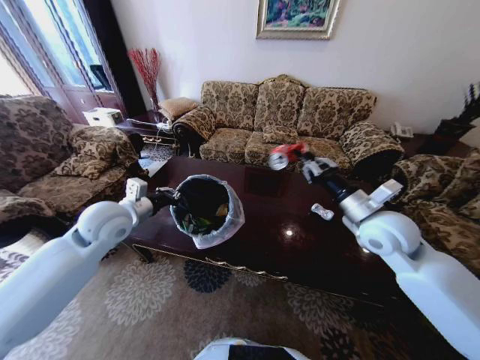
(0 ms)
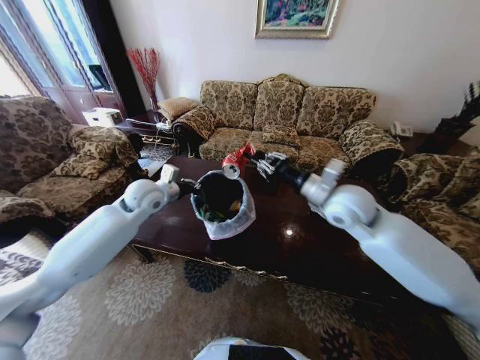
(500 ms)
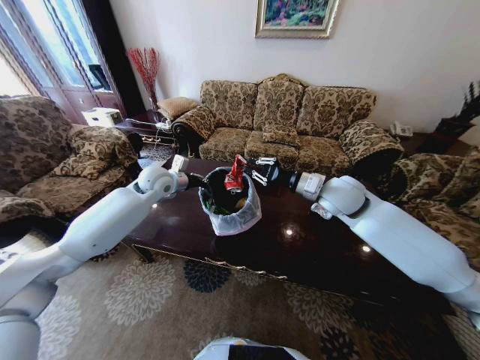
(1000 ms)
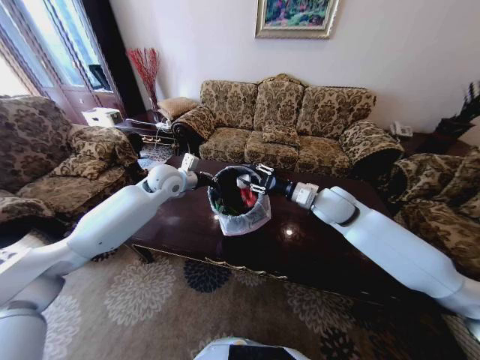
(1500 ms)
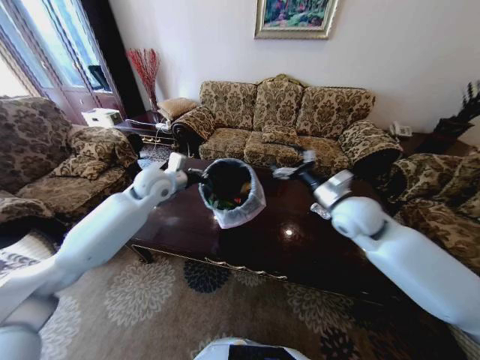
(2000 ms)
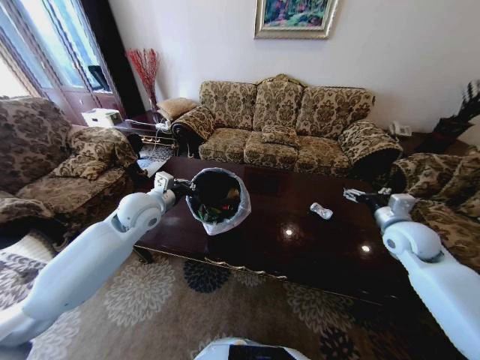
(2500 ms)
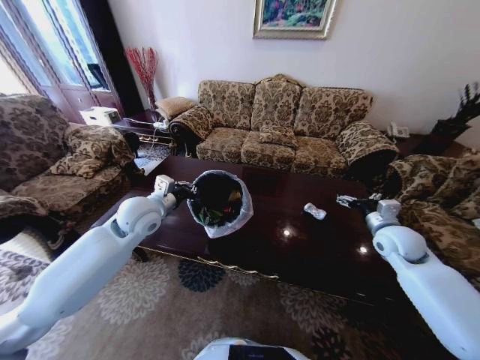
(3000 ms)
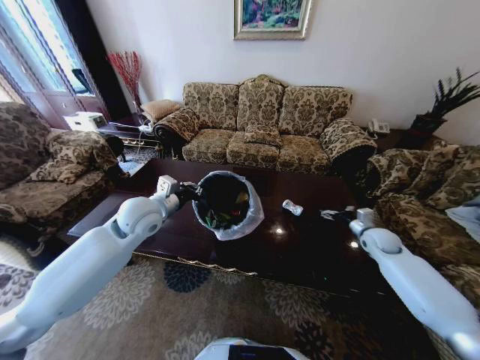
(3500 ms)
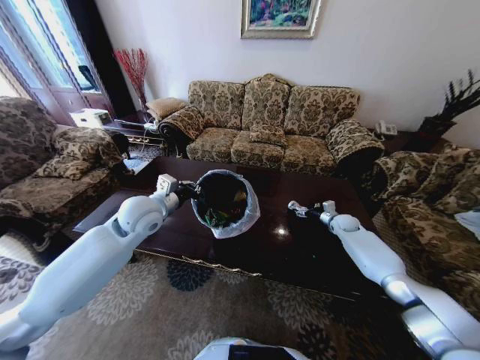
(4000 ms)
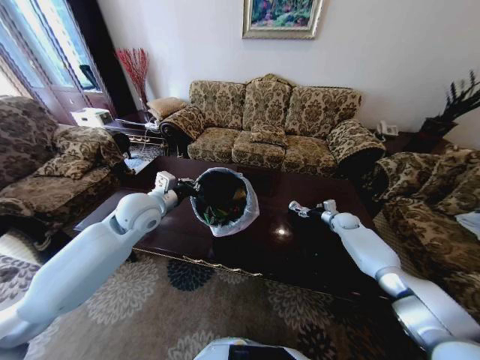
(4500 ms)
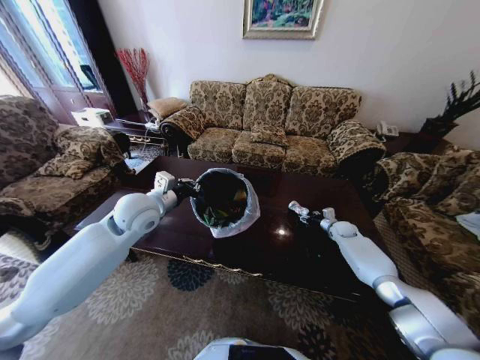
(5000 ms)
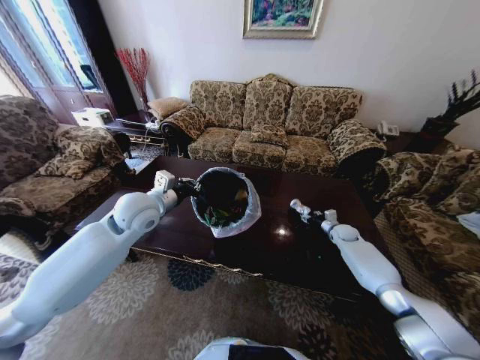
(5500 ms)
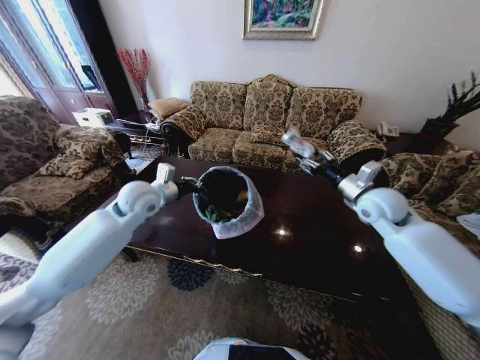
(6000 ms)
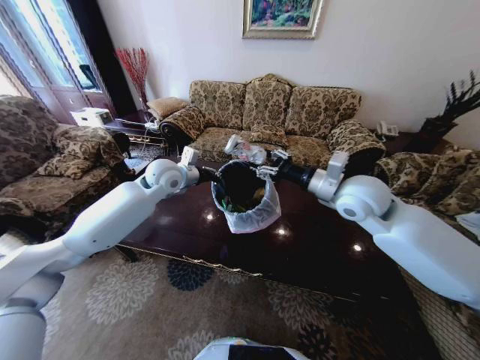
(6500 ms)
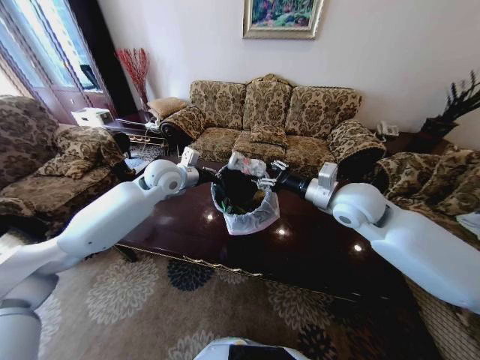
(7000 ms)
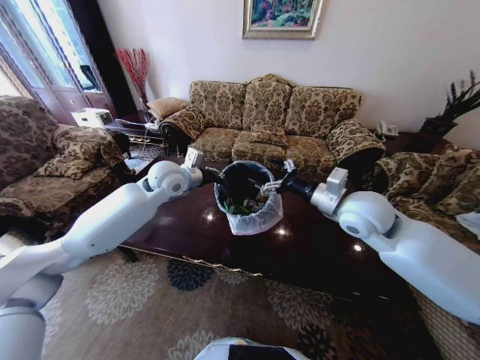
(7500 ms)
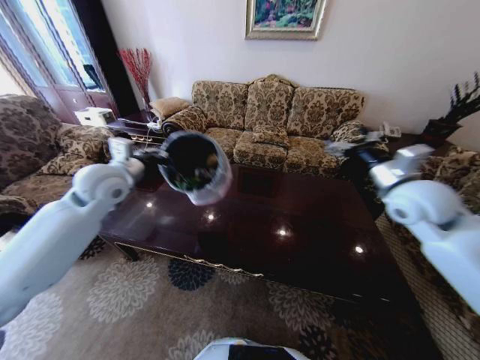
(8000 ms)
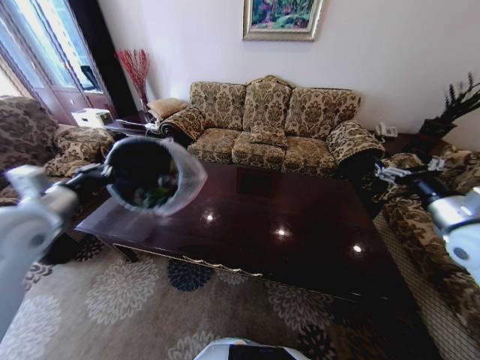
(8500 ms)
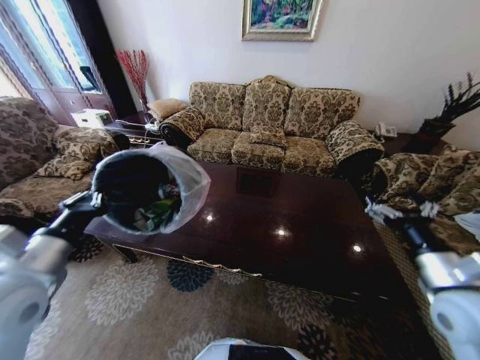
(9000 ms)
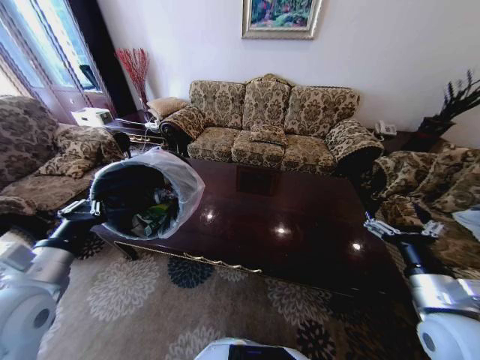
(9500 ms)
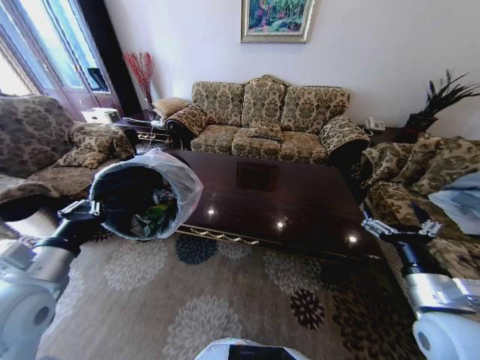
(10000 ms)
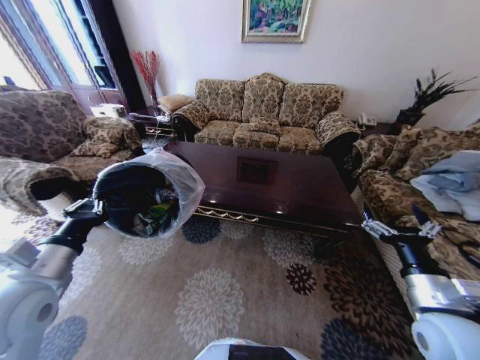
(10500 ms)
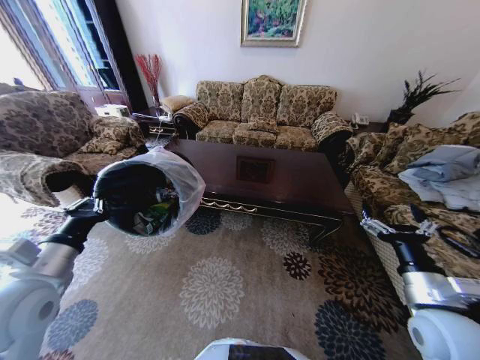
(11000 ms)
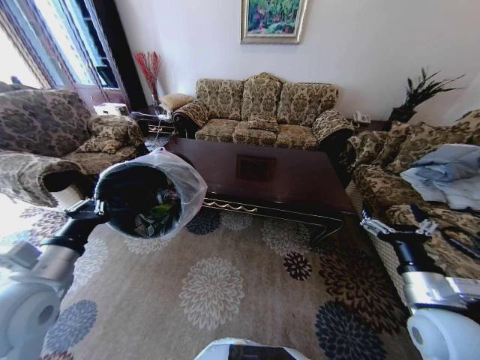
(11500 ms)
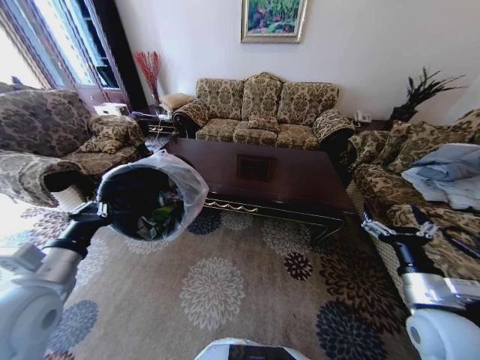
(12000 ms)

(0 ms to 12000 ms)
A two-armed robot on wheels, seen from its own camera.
Task of the whole recording: Move to the front of the table and place the trash on the table into the trash bin.
0 ms - 2000 ms: The right gripper opens up. The left gripper goes roughly 10 cm forward.
2000 ms - 4000 ms: The left gripper goes roughly 10 cm backward. Meanwhile the right gripper travels downward, forward and to the right by approximately 35 cm.
4000 ms - 6000 ms: The right gripper goes roughly 25 cm upward and backward, and closes up.
6000 ms - 8000 ms: The right gripper is displaced upward and backward by some 10 cm, travels to the left and back again, approximately 10 cm each way, and opens its fingers, while the left gripper heads upward and to the left, covering about 10 cm.
8000 ms - 10000 ms: The right gripper travels backward and downward by some 25 cm, while the left gripper travels backward by roughly 25 cm.

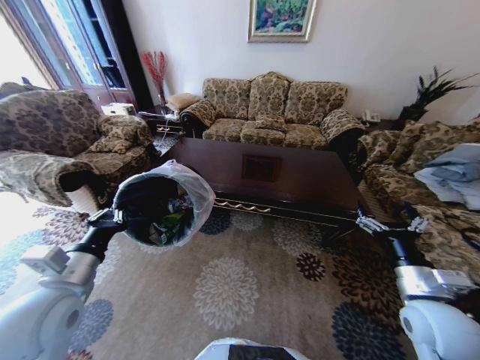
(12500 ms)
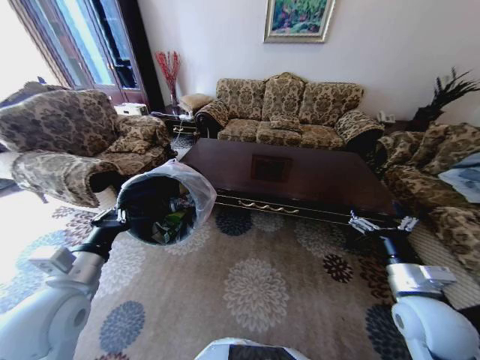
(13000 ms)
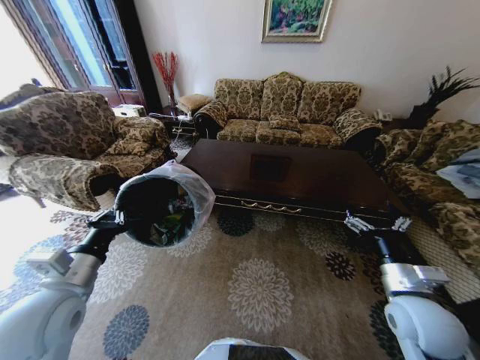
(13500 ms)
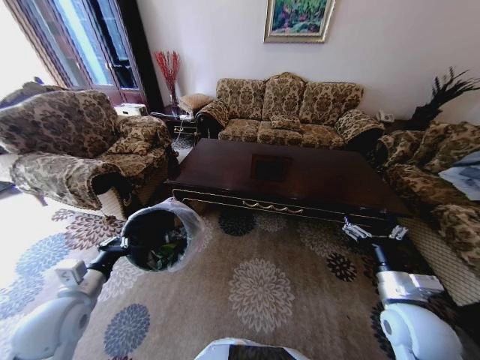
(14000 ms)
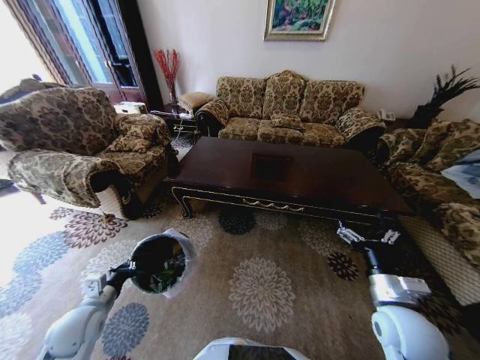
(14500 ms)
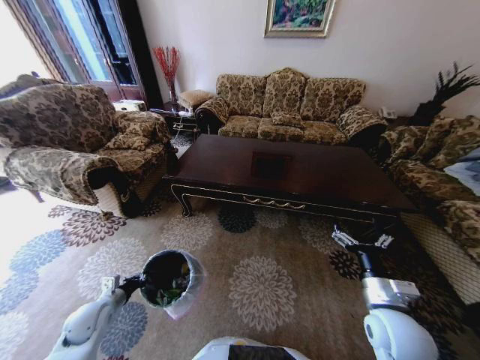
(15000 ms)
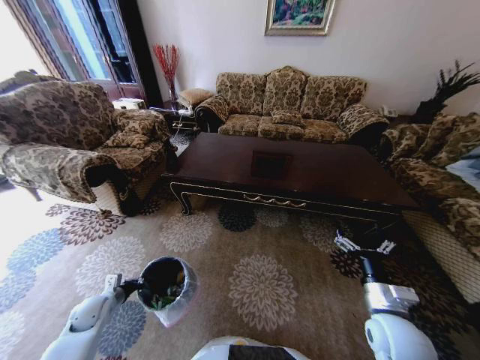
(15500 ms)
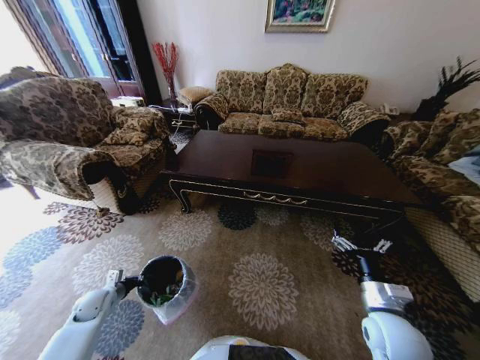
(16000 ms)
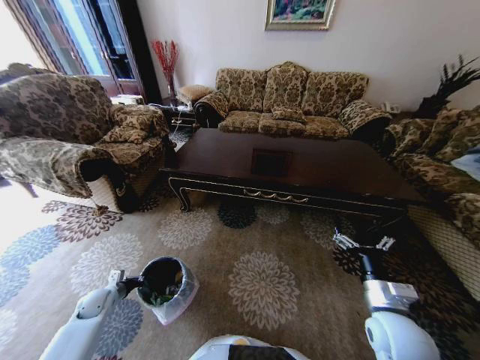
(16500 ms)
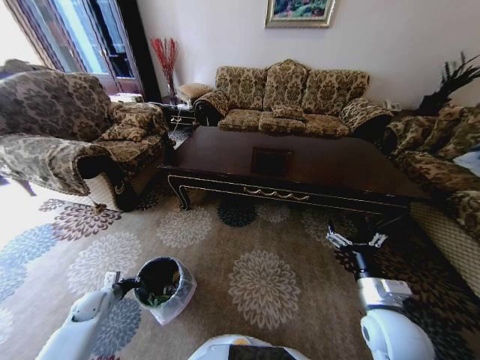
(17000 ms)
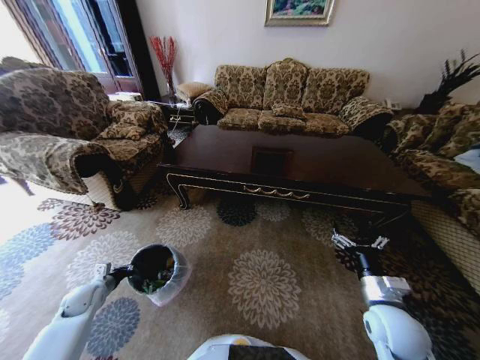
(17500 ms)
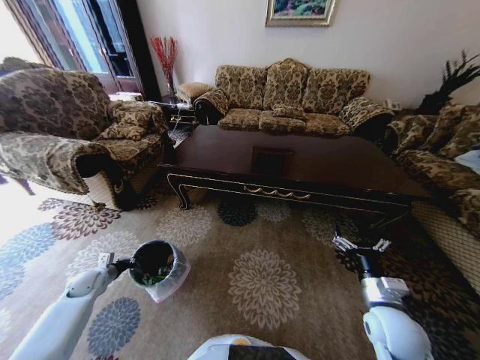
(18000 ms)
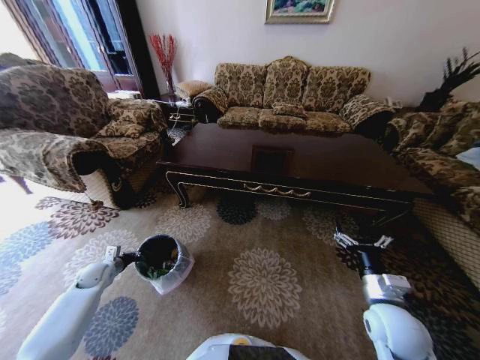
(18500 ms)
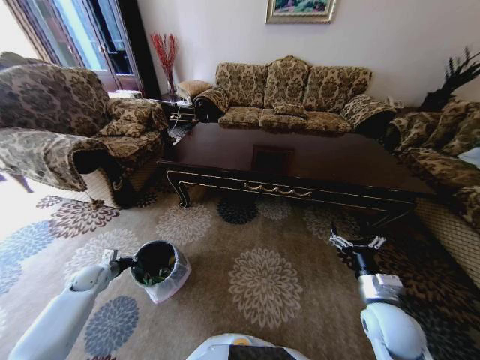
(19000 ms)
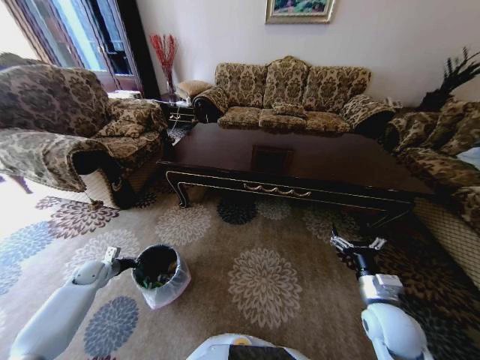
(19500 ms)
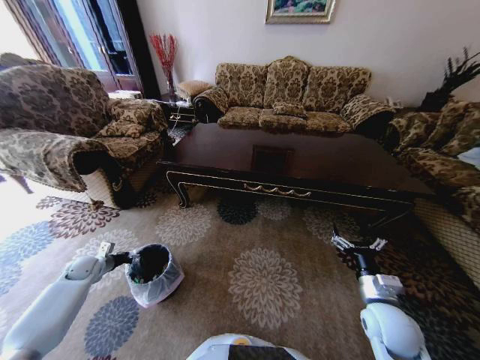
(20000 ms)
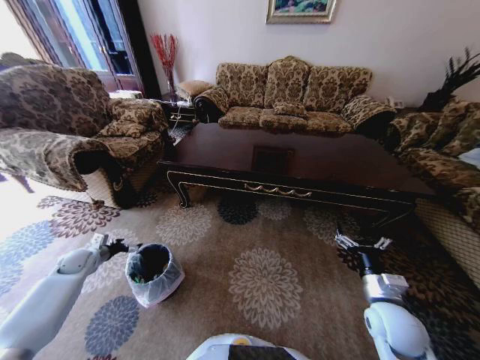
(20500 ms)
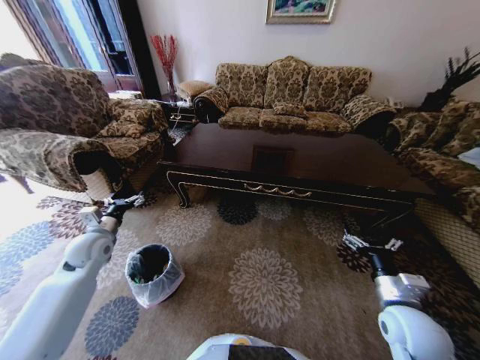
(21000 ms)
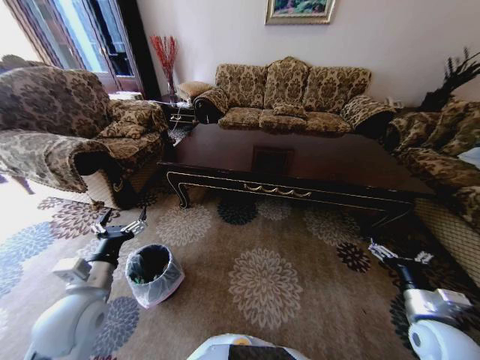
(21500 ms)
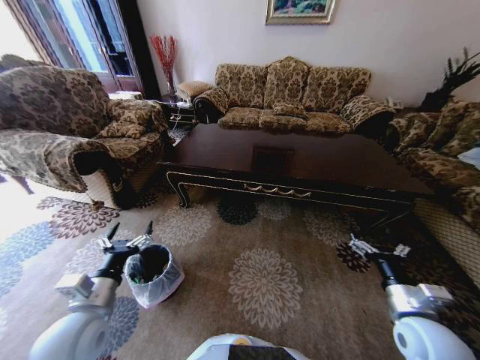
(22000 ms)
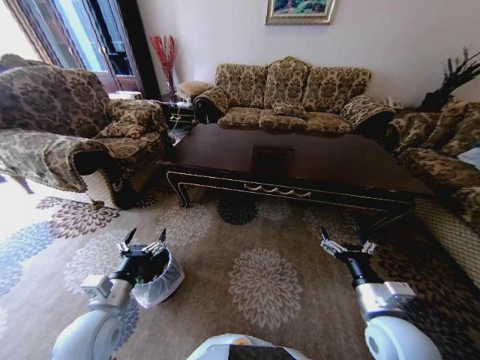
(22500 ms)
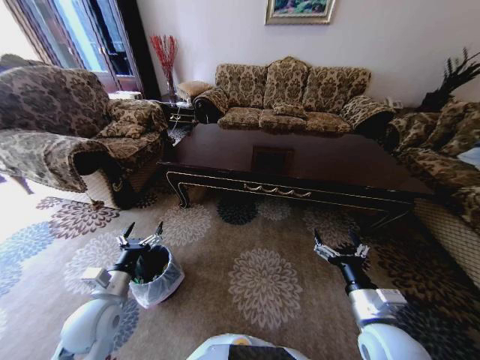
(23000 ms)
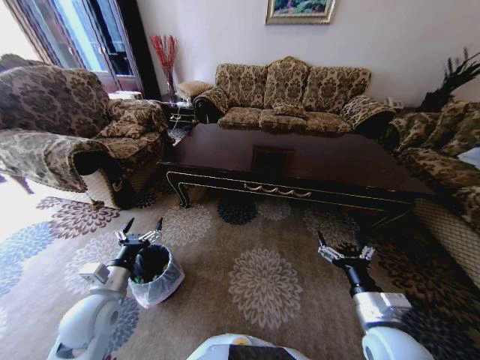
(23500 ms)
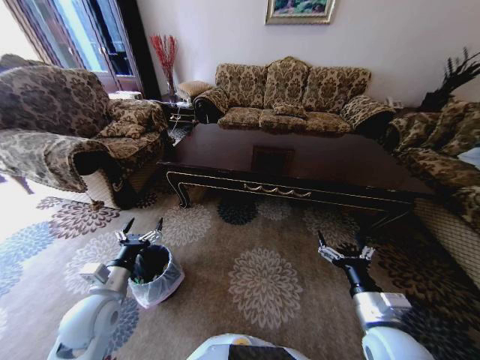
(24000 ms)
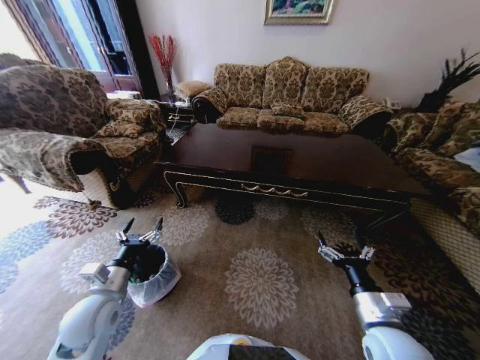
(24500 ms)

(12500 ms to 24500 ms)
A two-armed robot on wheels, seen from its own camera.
Task of the whole recording: Move to the front of the table and place the trash on the table into the trash bin.
12500 ms - 14500 ms: The left gripper travels downward by some 20 cm; the right gripper ends up roughly 5 cm from where it was.
14500 ms - 16500 ms: The left gripper moves downward, to the left and forward, some 20 cm.
16500 ms - 18500 ms: The left gripper shifts roughly 5 cm forward.
18500 ms - 20500 ms: The left gripper shifts approximately 5 cm upward, and opens.
20500 ms - 22500 ms: The right gripper changes place by about 5 cm. Meanwhile the left gripper shifts approximately 35 cm to the right, backward and upward.
22500 ms - 24500 ms: There are only small adjustments of the grippers.

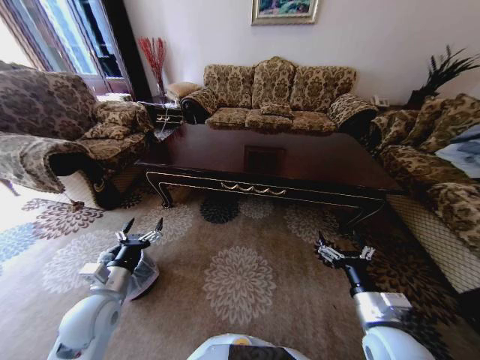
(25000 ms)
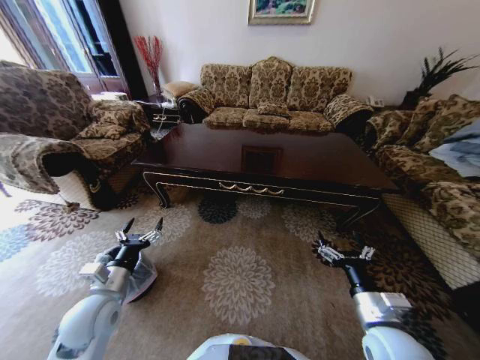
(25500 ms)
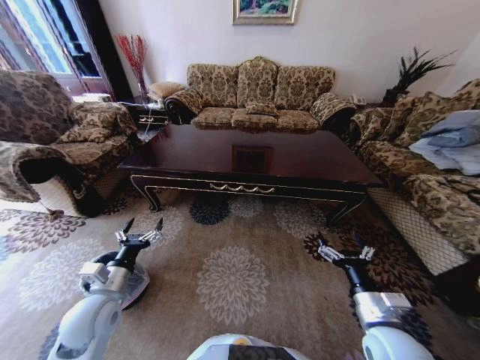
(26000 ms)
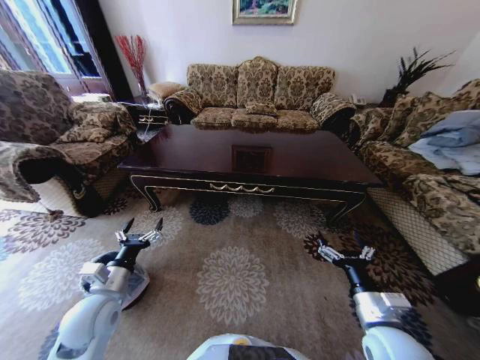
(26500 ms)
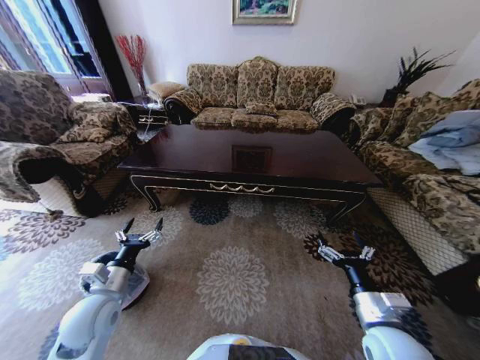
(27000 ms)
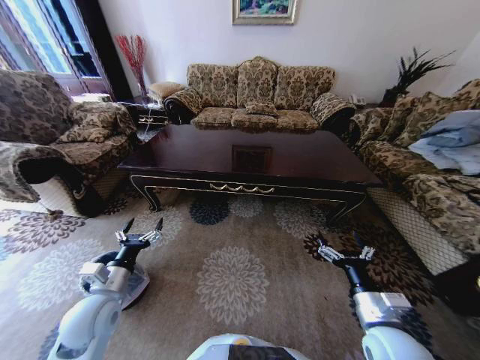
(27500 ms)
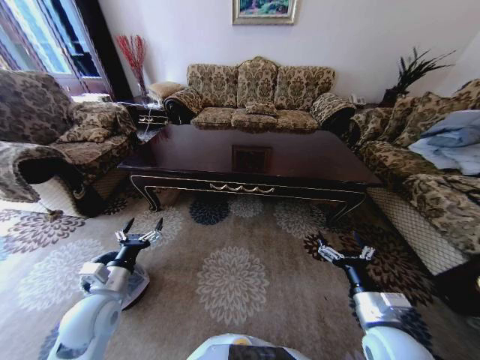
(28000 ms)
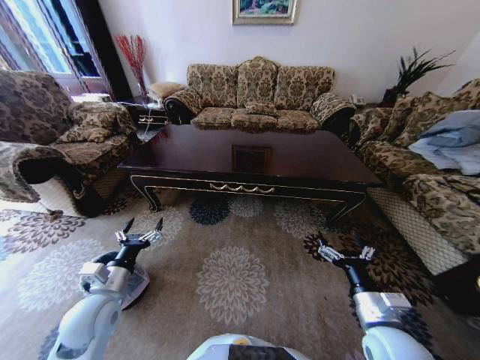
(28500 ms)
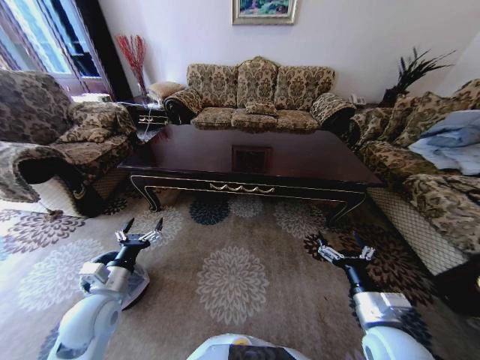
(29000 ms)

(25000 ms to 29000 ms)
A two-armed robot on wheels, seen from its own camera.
Task of the whole recording: Move to the front of the table and place the trash on the table into the trash bin.
27000 ms - 29000 ms: Both grippers stay about where they are.
